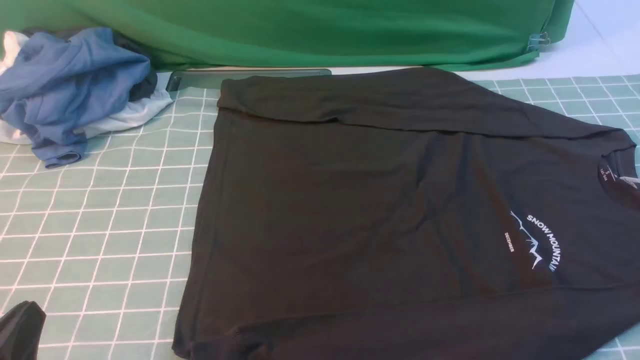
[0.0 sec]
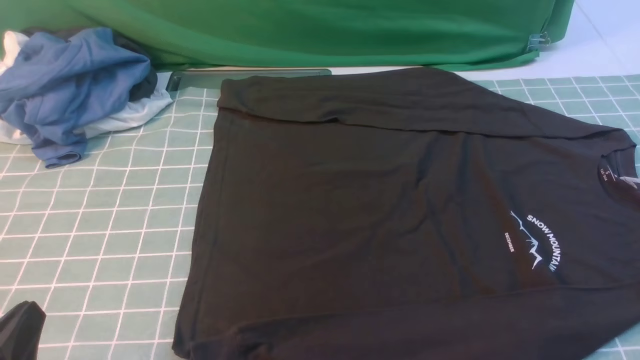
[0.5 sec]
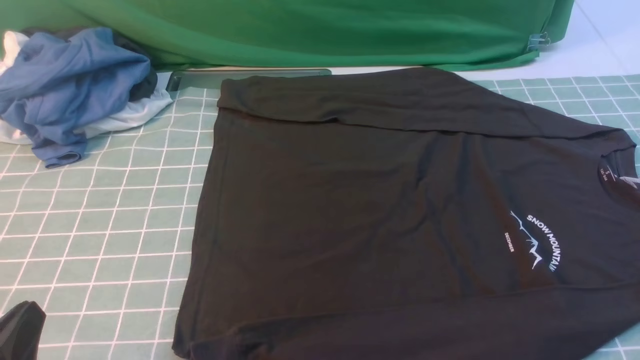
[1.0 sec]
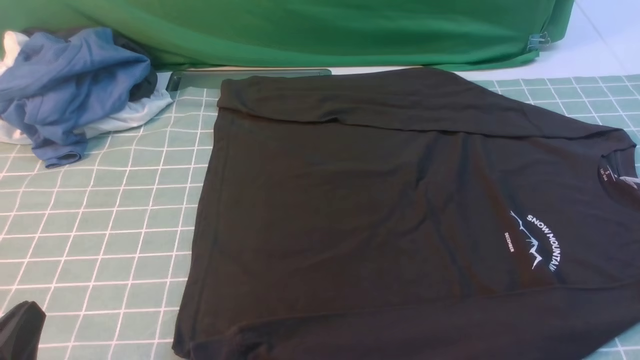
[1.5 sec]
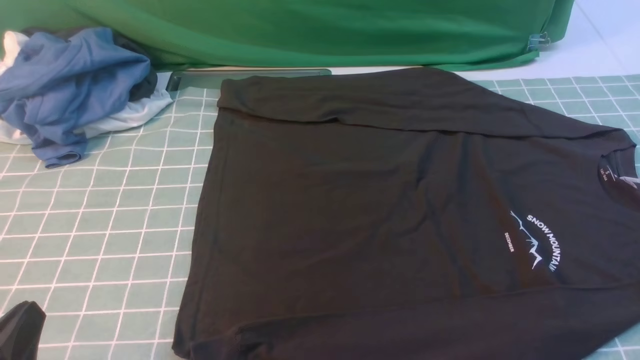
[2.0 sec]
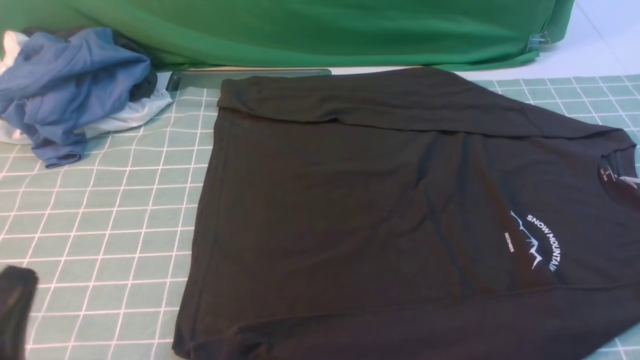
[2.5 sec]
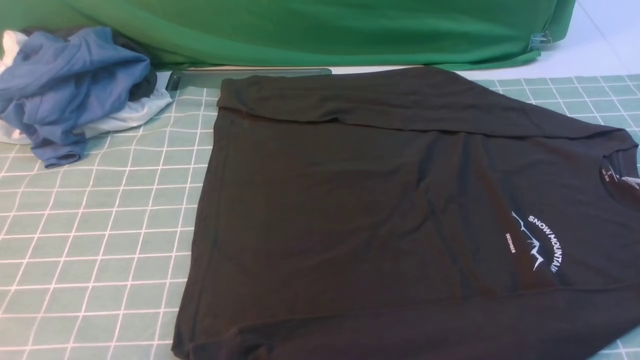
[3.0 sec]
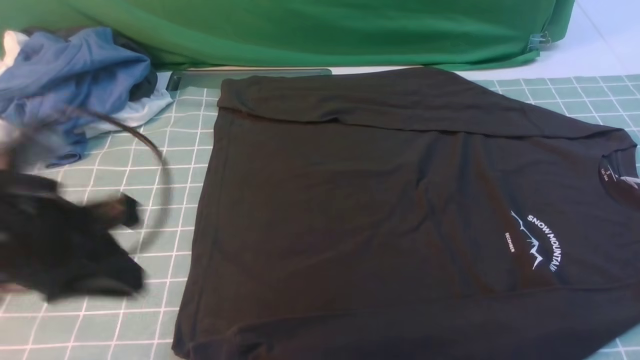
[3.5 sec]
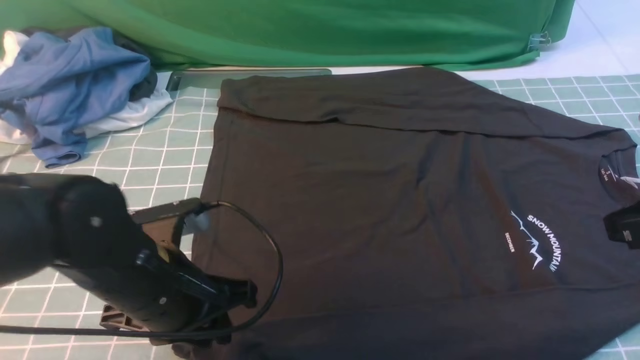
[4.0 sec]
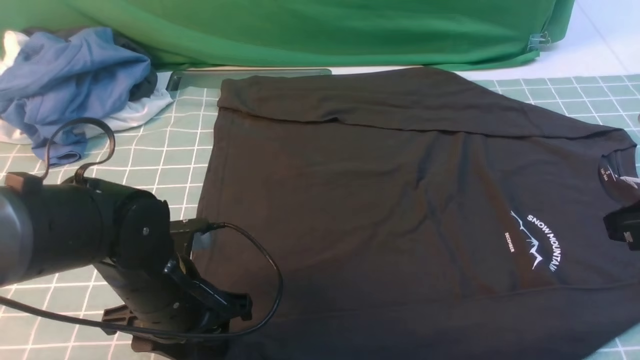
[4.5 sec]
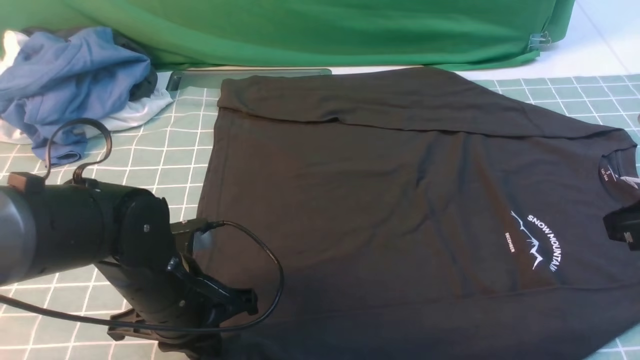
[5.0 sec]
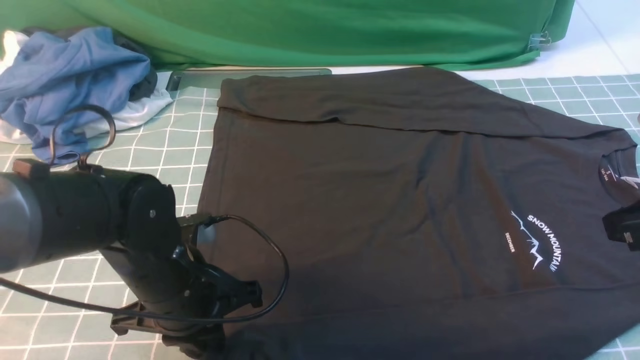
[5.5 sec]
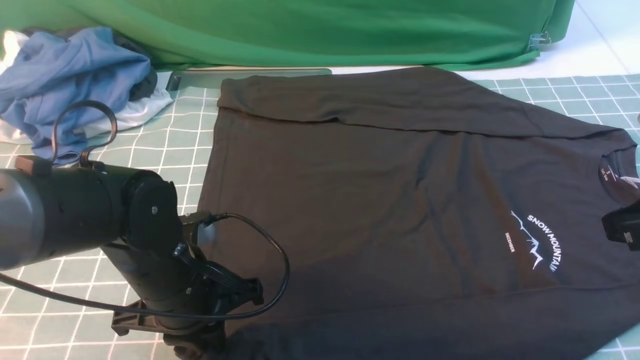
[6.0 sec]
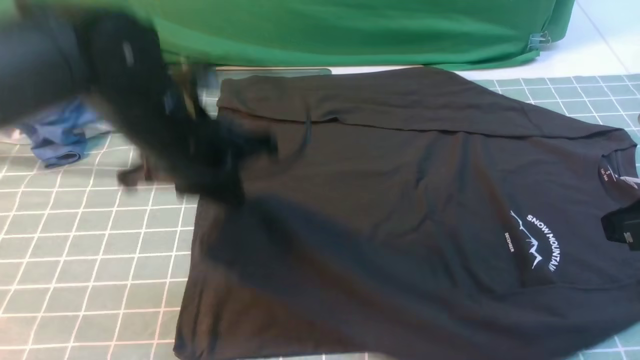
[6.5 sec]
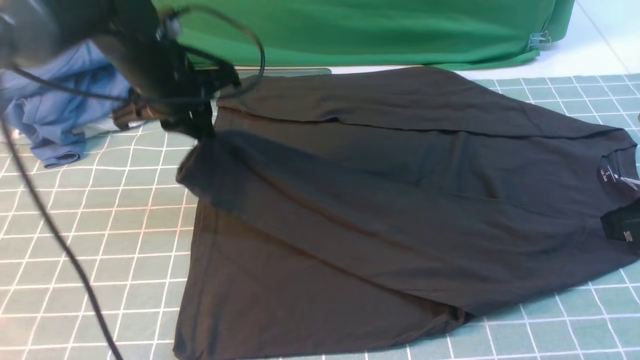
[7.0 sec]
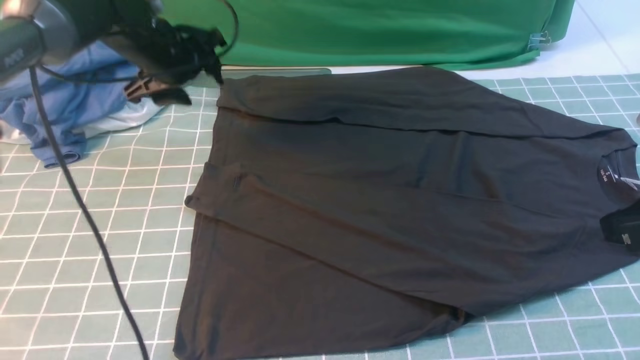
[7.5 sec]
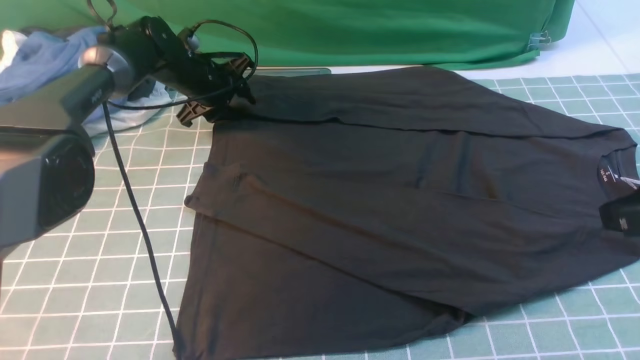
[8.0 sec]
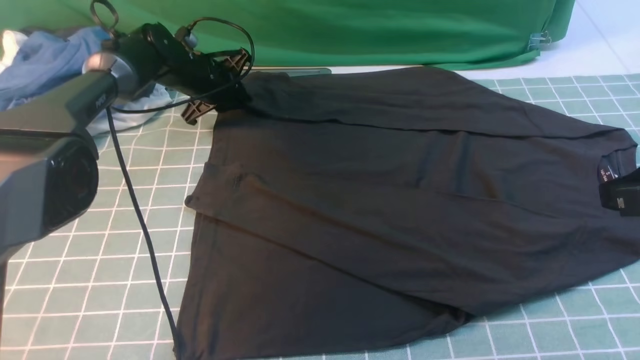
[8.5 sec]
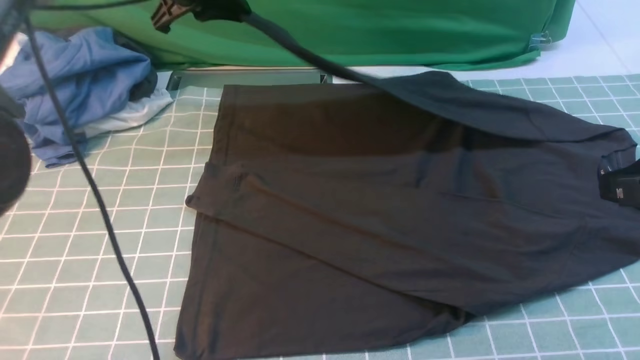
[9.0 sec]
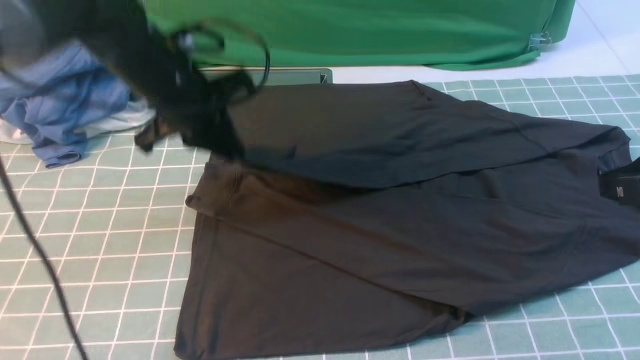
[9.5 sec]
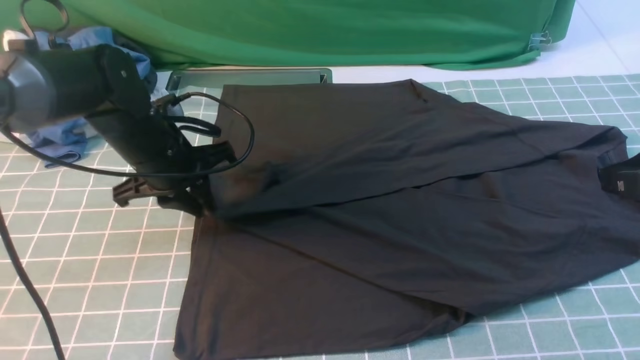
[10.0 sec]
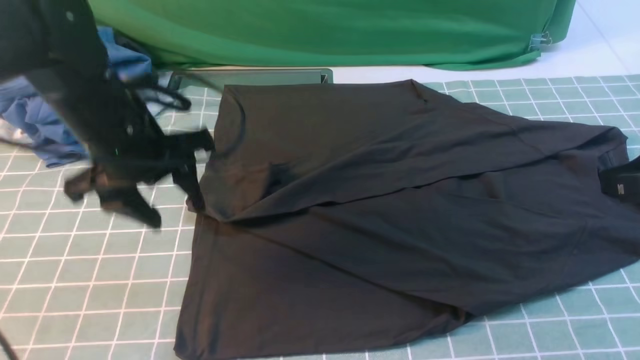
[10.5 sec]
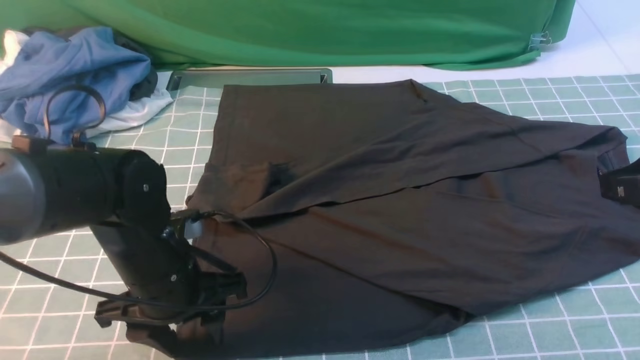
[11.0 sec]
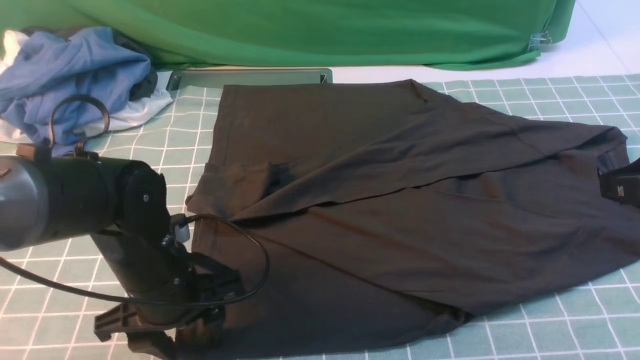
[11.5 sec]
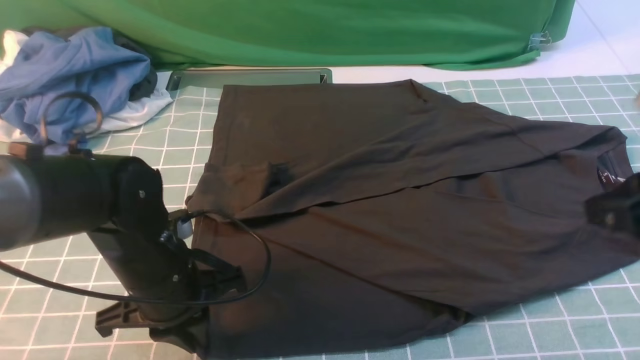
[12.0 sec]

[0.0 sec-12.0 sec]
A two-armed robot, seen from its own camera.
Step, 0.0 sec to 6.0 sec: use the left arm to clamp the cuff closest to it.
Step, 6.5 sec to 7.0 sec: use the left arm to drag and place the cuff at the centered position on the left edge of the fabric.
Step, 7.5 sec to 8.5 sec: use the left arm to clamp the cuff farthest from it.
Step, 9.0 sec to 10.0 sec: use the left arm to drag and drop the cuff onto the cuff closest to the left arm.
0.0 sec to 2.0 sec: The two grippers keep their place.
2.0 sec to 4.0 sec: The left gripper shifts about 20 cm forward and to the right, and opens its fingers. The right gripper is displaced forward and upward by some 15 cm, and closes its fingers.
4.0 sec to 6.0 sec: The left gripper opens, then closes once more.
6.0 sec to 8.0 sec: The left gripper travels forward by approximately 30 cm, and opens its fingers.
8.0 sec to 10.0 sec: The left gripper moves backward, approximately 20 cm, and closes its fingers.
10.0 sec to 12.0 sec: The left gripper is displaced backward by some 15 cm, and opens, then closes once more.

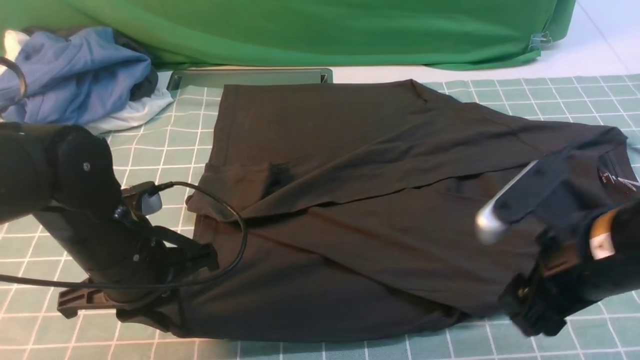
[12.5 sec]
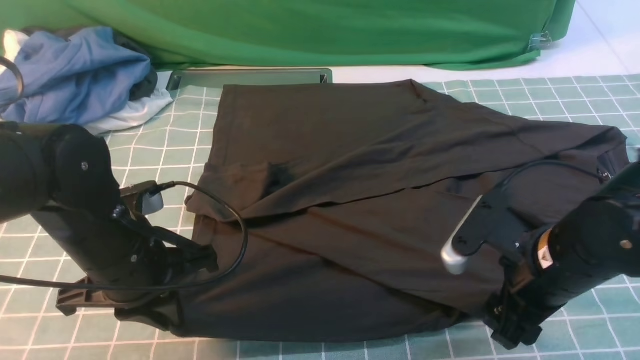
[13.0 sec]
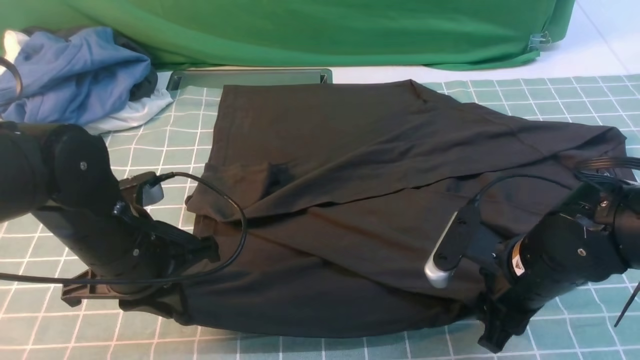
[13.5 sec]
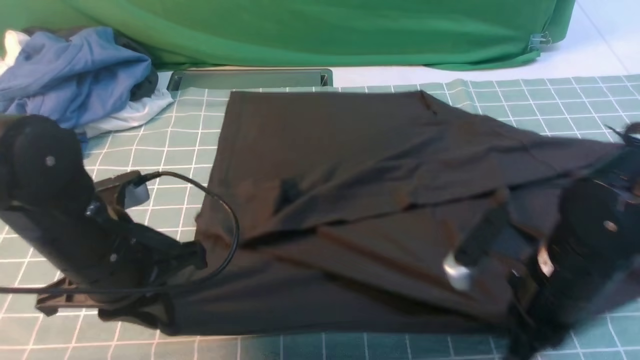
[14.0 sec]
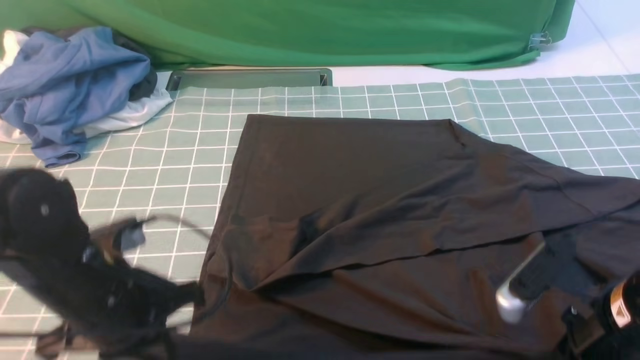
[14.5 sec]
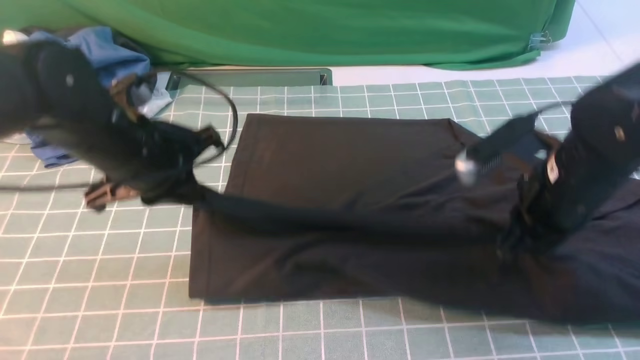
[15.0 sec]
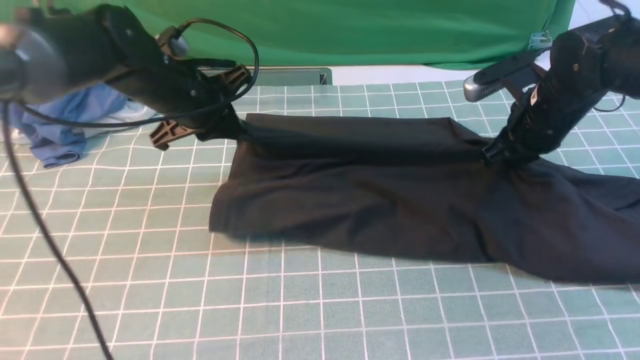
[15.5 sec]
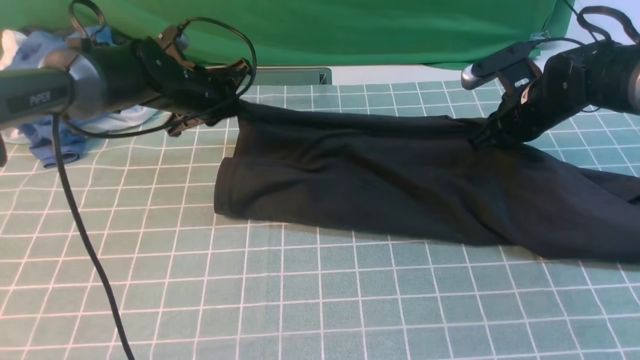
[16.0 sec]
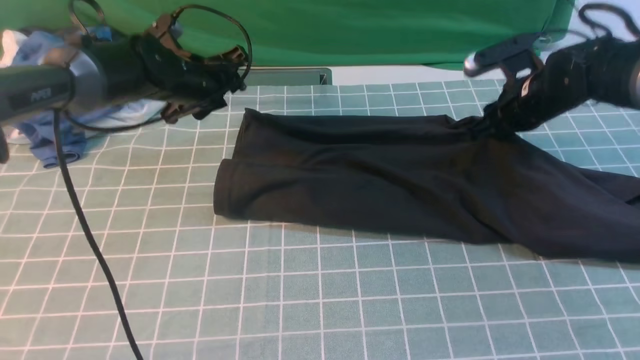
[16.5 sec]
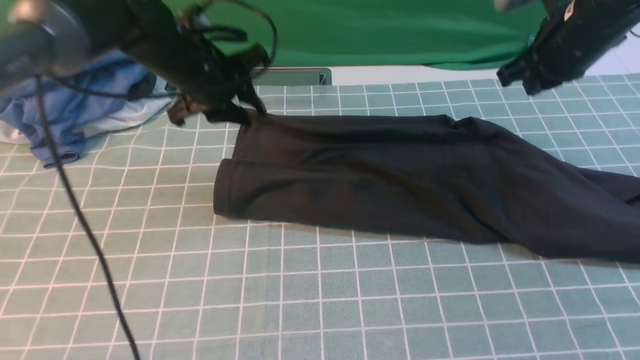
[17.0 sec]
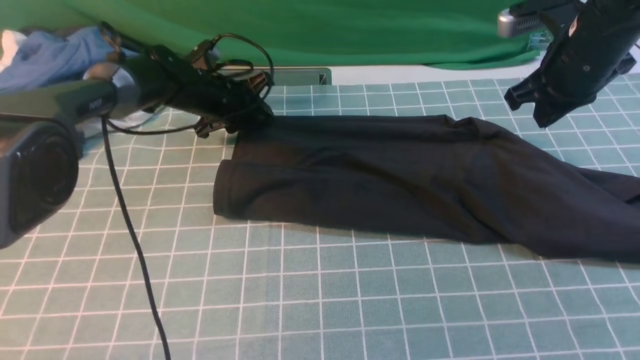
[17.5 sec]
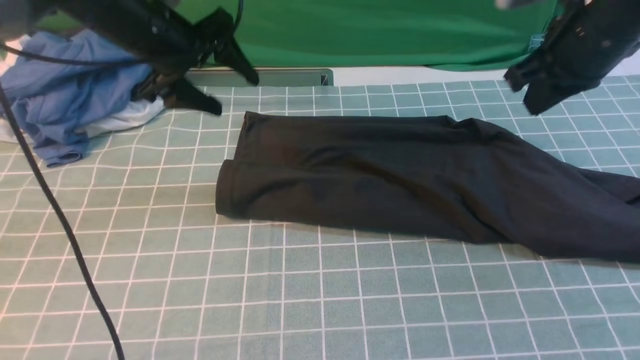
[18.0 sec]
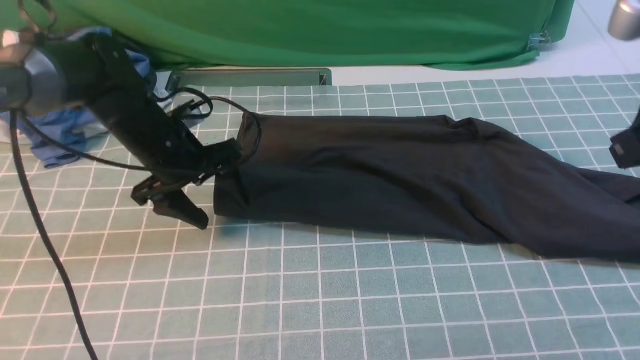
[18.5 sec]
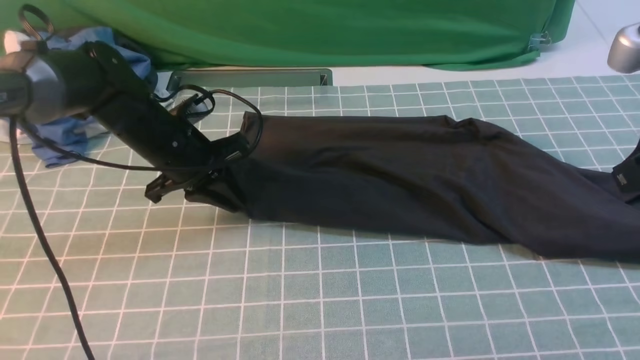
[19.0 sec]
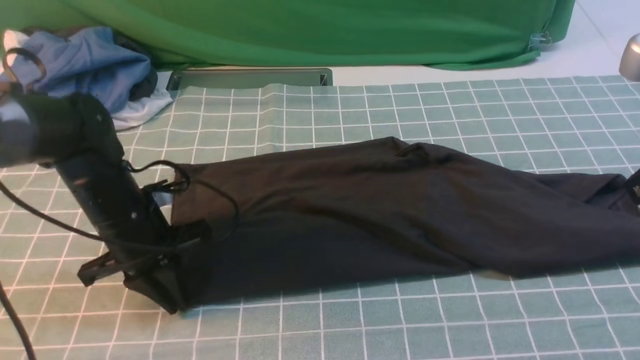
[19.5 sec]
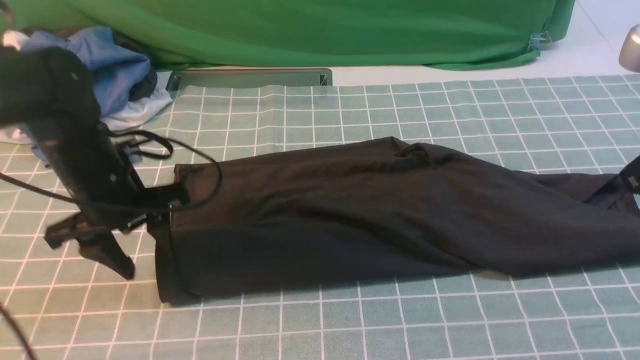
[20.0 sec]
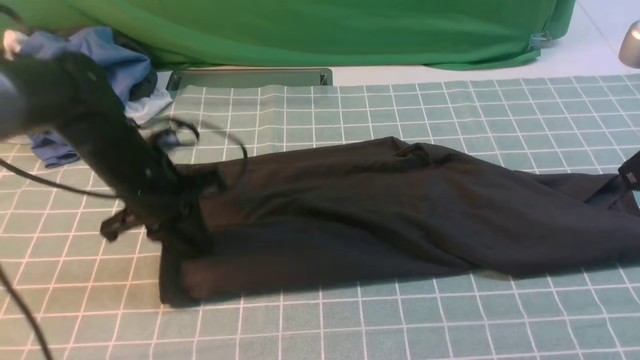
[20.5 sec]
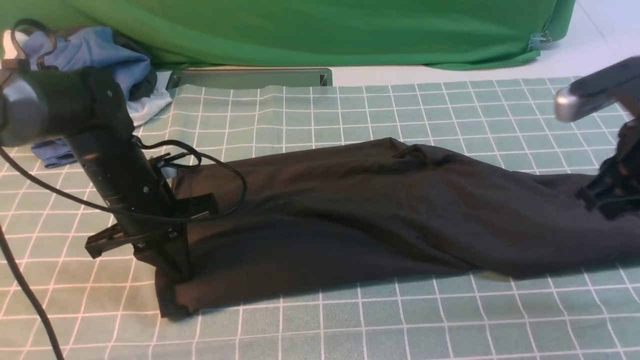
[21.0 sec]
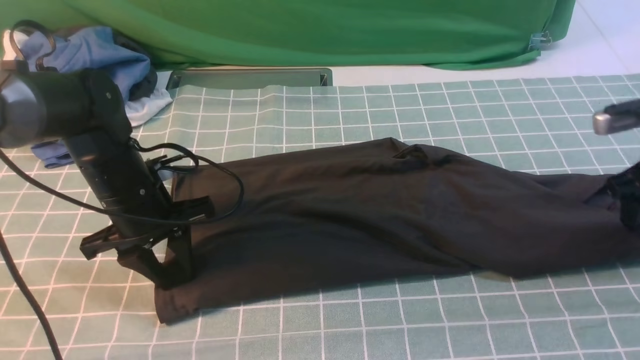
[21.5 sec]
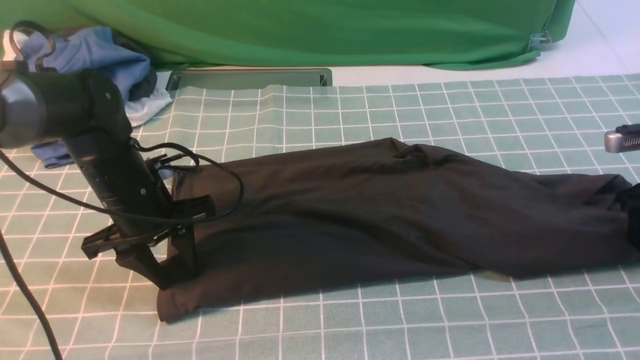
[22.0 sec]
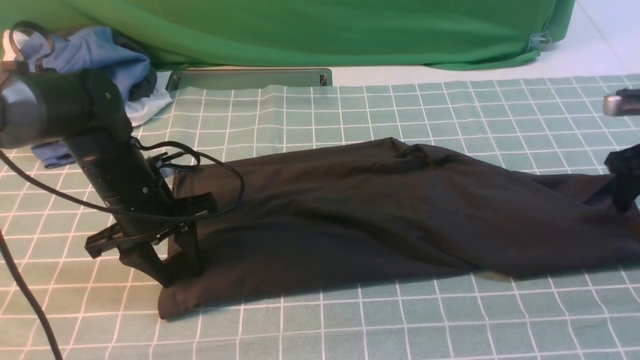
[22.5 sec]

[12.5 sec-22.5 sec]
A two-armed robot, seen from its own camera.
Step, 14.5 sec to 17.5 sec: use both arms to drag the lower edge of the fabric forward and fold it over the upper edge.
12.5 sec to 14.5 sec: The right gripper closes.
14.5 sec to 16.5 sec: The two grippers go about 25 cm forward. The left gripper opens up. The right gripper opens its fingers.
16.5 sec to 18.5 sec: The right gripper is displaced backward and upward by approximately 25 cm, and closes its fingers, while the left gripper shifts roughly 5 cm backward.
18.5 sec to 20.5 sec: The left gripper travels backward by approximately 5 cm, and closes up.
20.5 sec to 22.5 sec: The left gripper opens up, while the right gripper travels forward, downward and to the right by roughly 25 cm, and opens.
